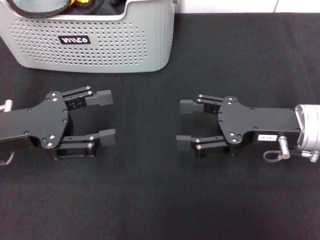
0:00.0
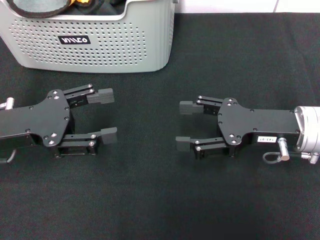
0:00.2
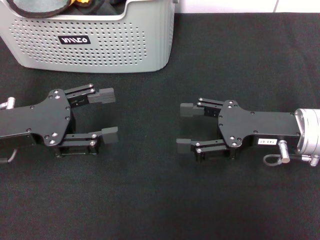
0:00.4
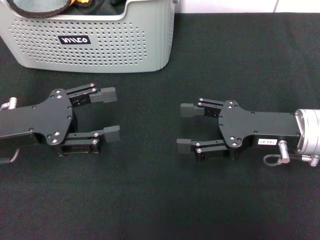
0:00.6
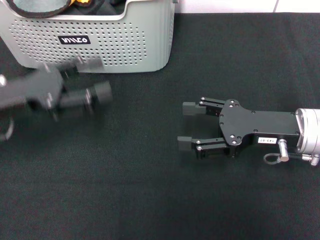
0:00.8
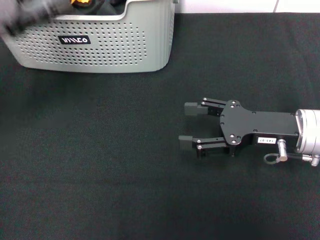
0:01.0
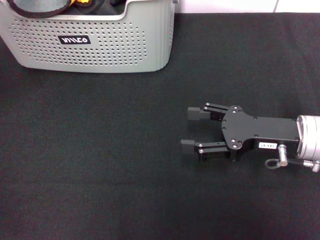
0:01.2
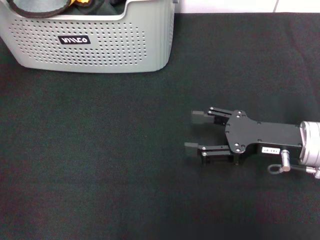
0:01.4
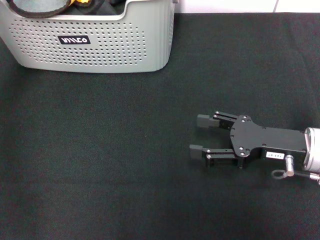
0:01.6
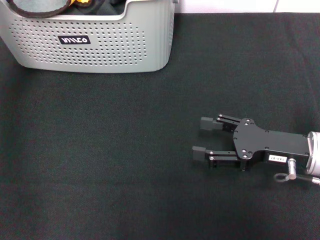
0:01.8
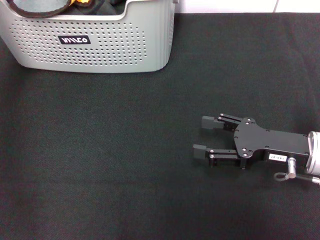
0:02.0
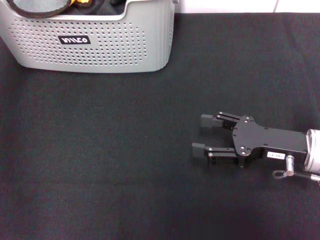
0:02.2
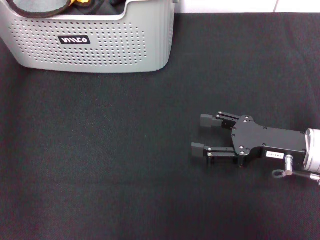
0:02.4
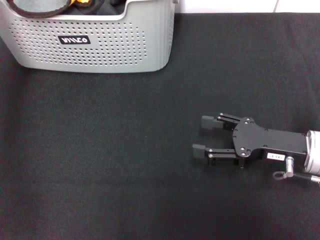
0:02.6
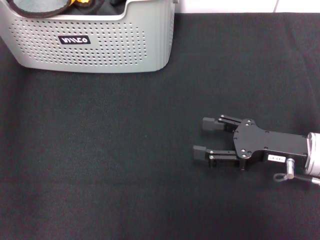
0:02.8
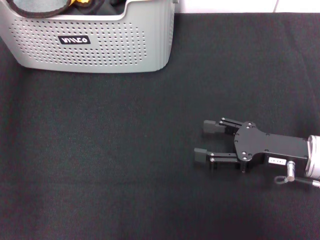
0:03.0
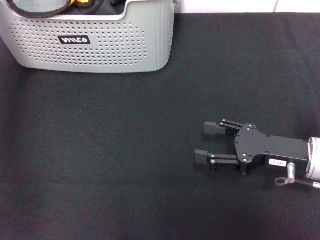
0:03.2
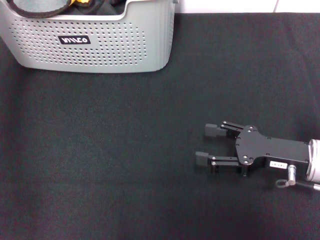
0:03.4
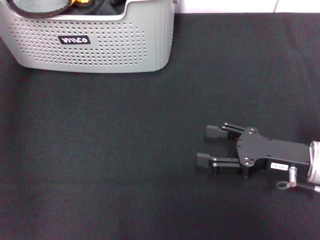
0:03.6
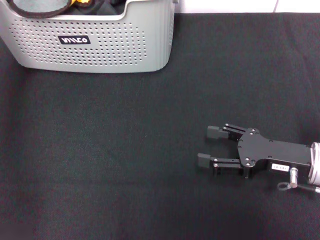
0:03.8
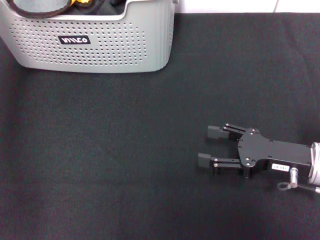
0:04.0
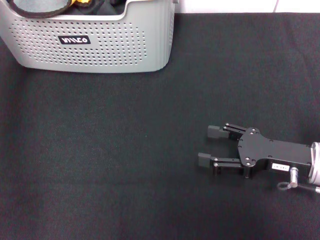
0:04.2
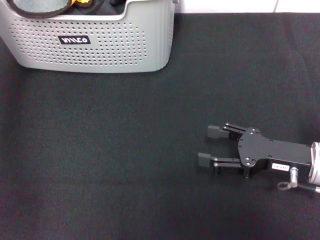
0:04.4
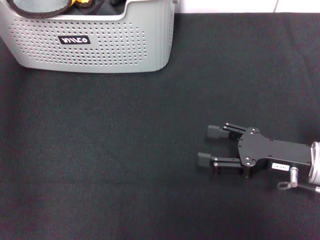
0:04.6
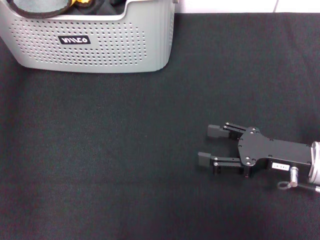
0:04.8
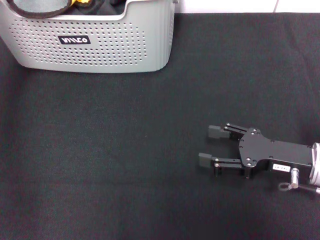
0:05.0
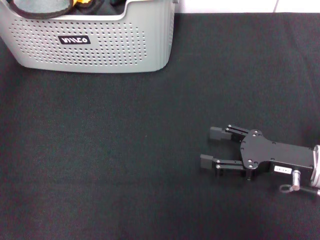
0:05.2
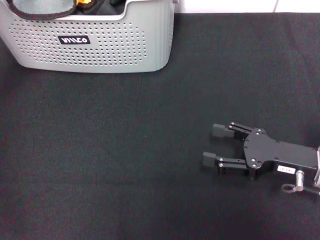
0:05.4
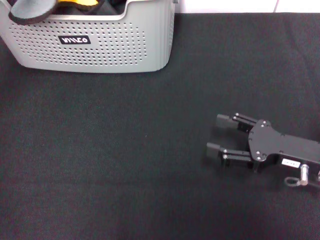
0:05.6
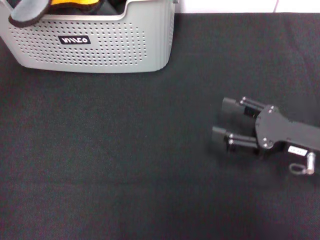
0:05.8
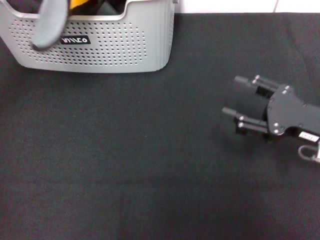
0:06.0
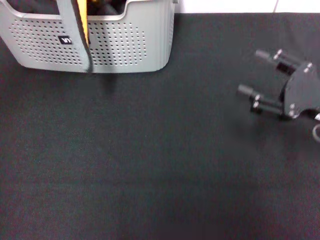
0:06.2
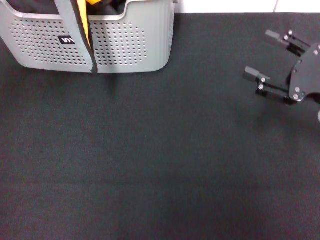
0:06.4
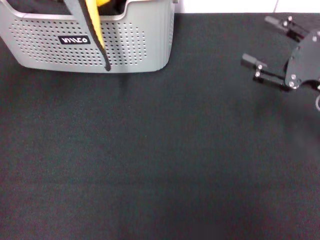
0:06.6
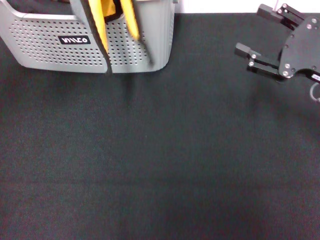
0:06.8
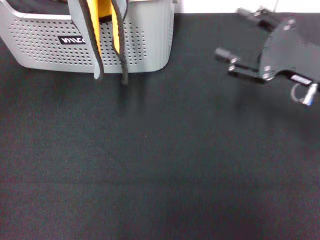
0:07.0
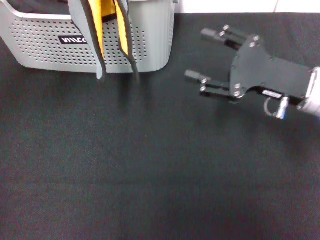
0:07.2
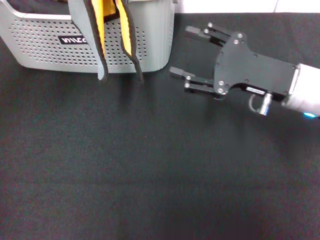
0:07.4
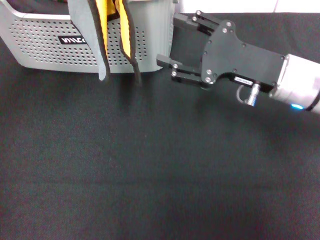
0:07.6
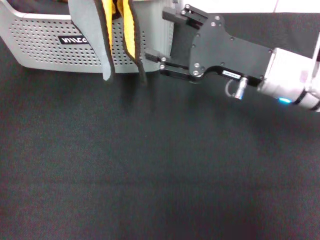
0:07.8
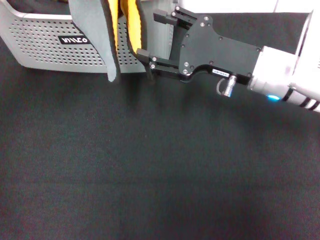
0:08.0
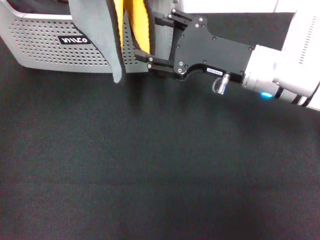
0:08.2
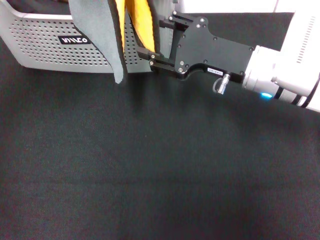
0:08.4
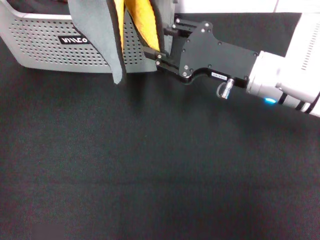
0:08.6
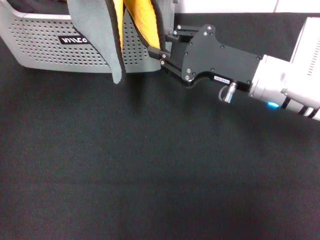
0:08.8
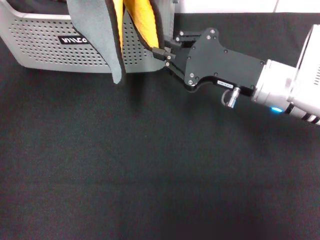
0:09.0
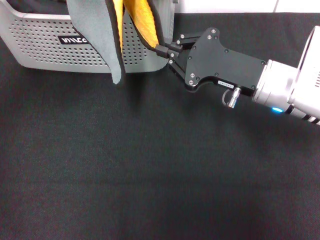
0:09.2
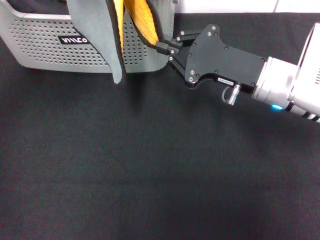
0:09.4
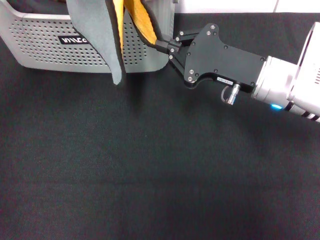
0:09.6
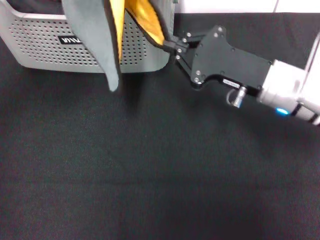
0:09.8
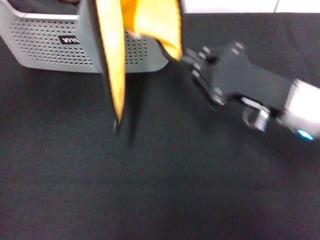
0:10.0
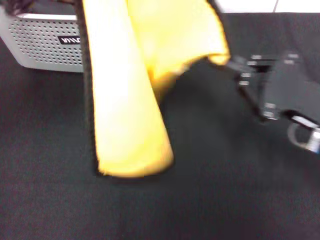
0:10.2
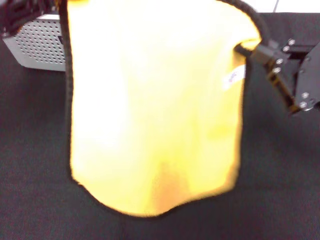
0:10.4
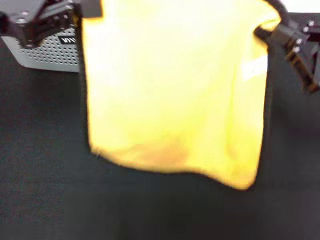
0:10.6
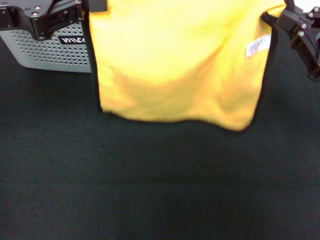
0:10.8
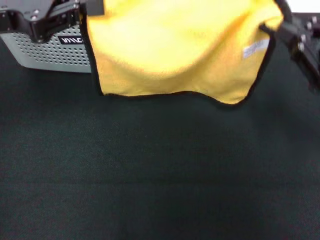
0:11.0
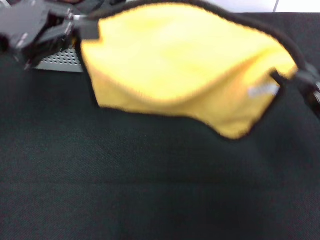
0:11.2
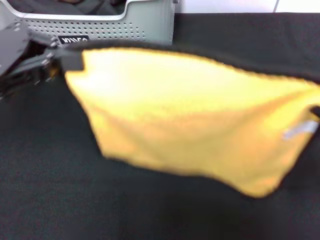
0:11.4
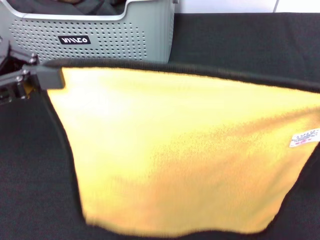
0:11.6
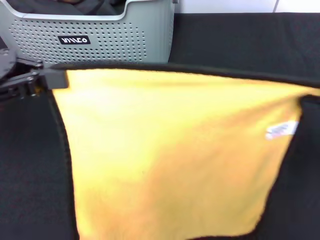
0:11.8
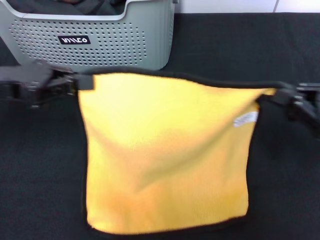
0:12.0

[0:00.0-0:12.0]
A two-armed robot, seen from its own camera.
Task of the whole recording: pick up the towel from the storage box and lay it flat on the black tablecloth.
Step, 0:00.0 to 0:05.0: Pick up a towel with the left gripper.
Step, 0:05.2 to 0:09.2: Spread the towel flat with the left gripper.
0:00.0 to 0:01.6: The left gripper travels forward and upward by some 20 cm.
0:01.6 to 0:03.0: The grippers stay close to where they were, moving slightly.
0:04.4 to 0:06.0: The left gripper travels backward by approximately 10 cm, and closes.
0:06.0 to 0:07.6: The right gripper goes roughly 10 cm to the left and forward.
0:07.6 to 0:09.0: The right gripper closes its fingers.
0:09.0 to 0:10.4: The right gripper is displaced to the right and backward by some 15 cm, and closes. Meanwhile the left gripper moves some 5 cm.
0:10.4 to 0:12.0: The left gripper shifts about 10 cm downward; the right gripper reaches about 10 cm backward, then returns.

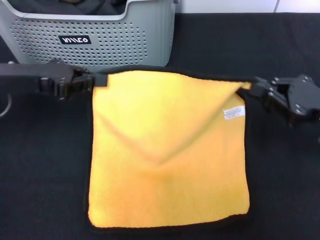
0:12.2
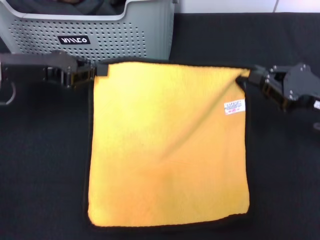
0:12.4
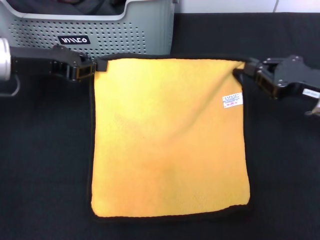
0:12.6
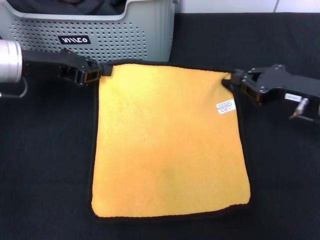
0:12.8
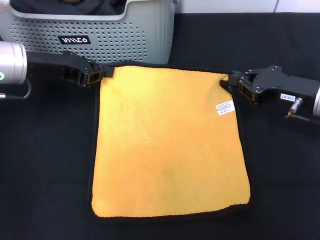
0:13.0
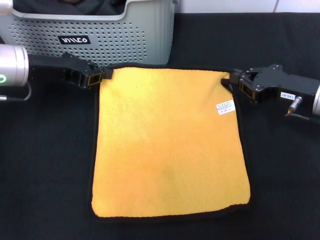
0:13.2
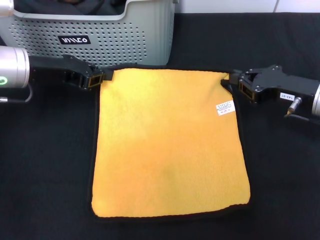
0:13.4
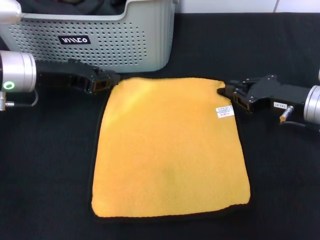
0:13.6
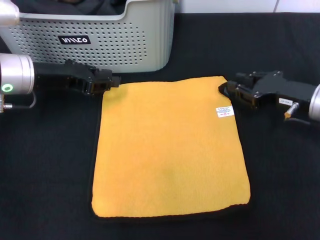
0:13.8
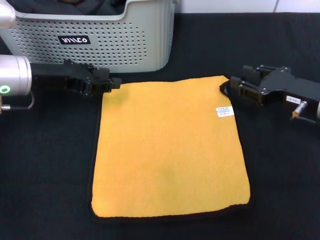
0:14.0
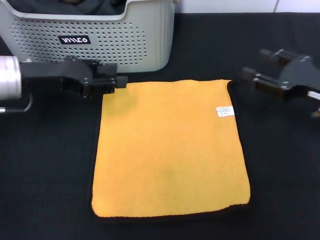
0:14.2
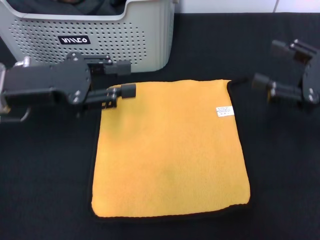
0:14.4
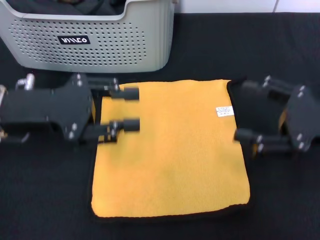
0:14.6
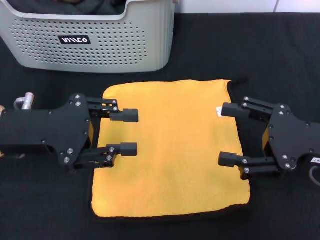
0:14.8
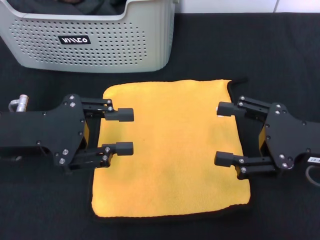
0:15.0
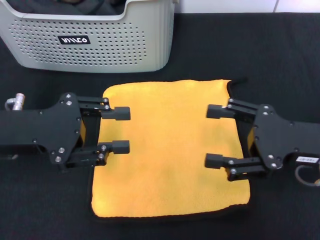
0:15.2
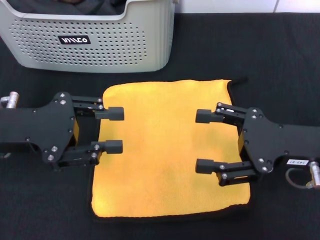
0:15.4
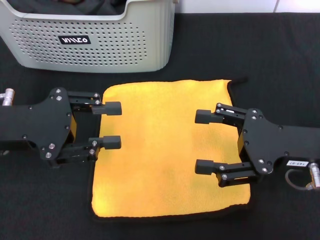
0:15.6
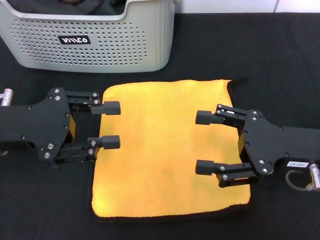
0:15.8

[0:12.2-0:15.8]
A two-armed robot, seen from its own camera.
Task of the whole recording: pick up the towel from the storage box and lay it flat on the black tablecloth.
0:12.2 to 0:14.0: The left gripper shifts by about 5 cm, while the right gripper goes roughly 5 cm forward.
0:14.0 to 0:15.8: The two grippers go some 10 cm backward. The right gripper opens.
